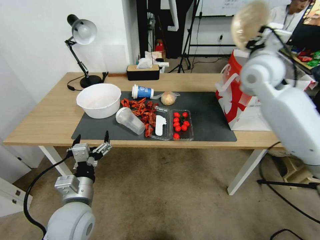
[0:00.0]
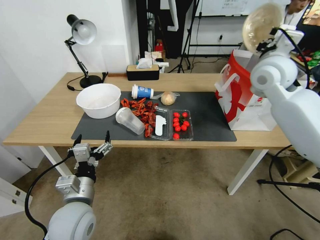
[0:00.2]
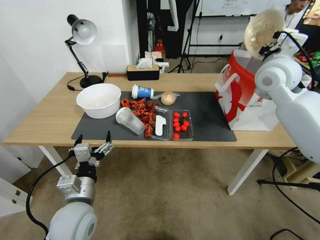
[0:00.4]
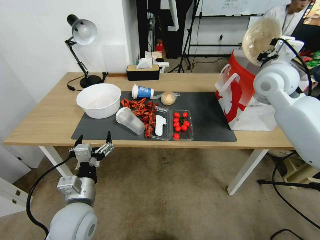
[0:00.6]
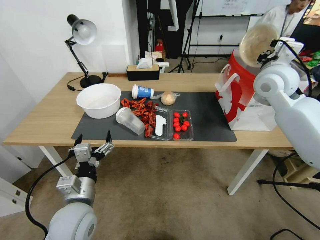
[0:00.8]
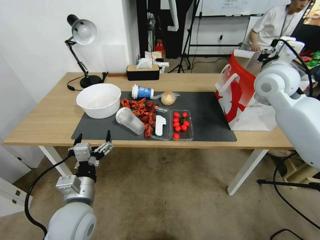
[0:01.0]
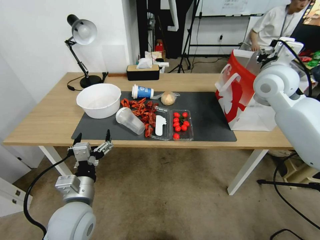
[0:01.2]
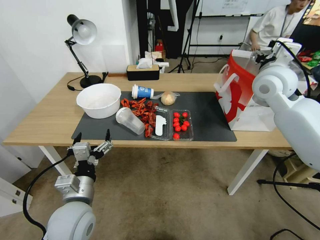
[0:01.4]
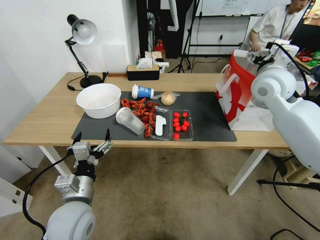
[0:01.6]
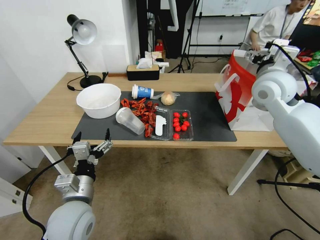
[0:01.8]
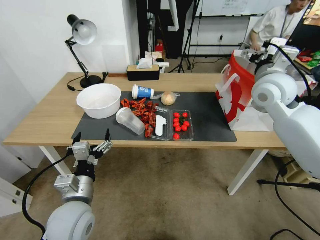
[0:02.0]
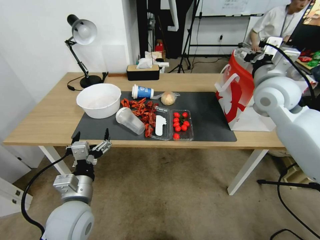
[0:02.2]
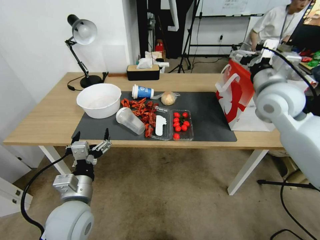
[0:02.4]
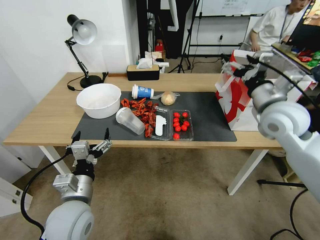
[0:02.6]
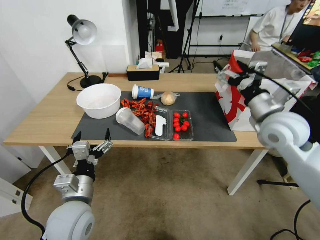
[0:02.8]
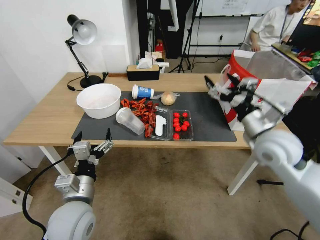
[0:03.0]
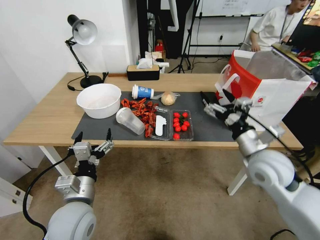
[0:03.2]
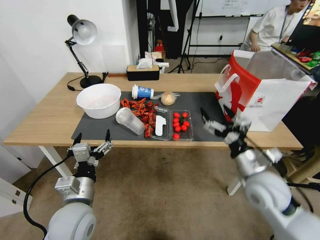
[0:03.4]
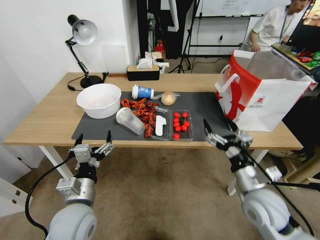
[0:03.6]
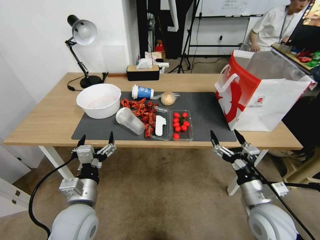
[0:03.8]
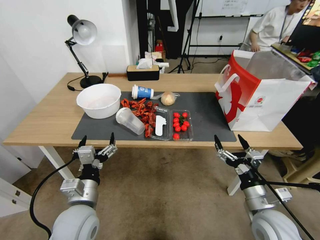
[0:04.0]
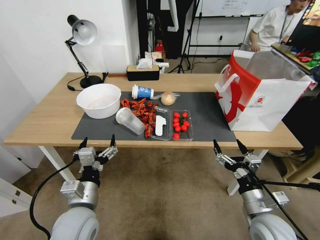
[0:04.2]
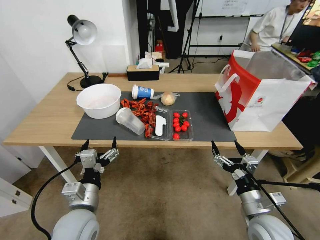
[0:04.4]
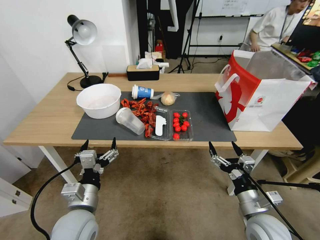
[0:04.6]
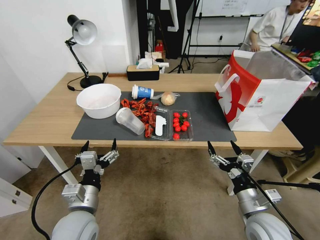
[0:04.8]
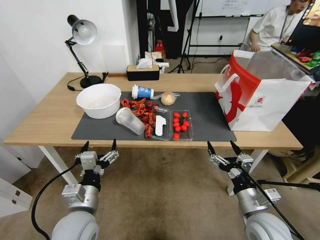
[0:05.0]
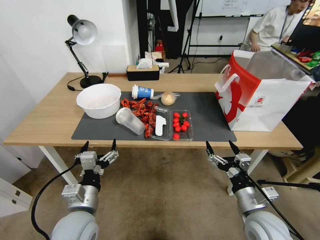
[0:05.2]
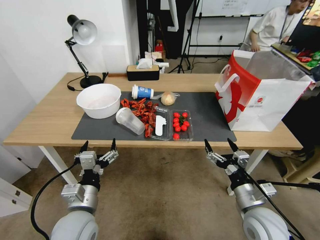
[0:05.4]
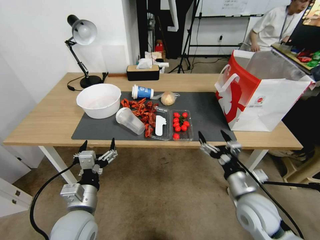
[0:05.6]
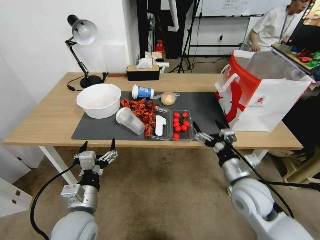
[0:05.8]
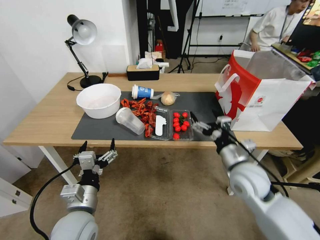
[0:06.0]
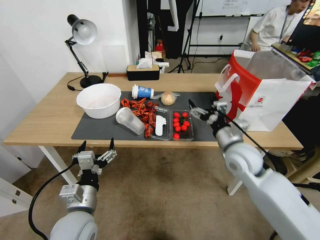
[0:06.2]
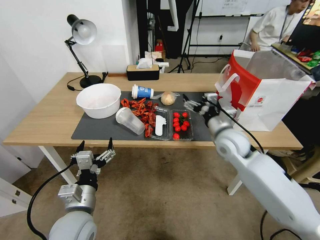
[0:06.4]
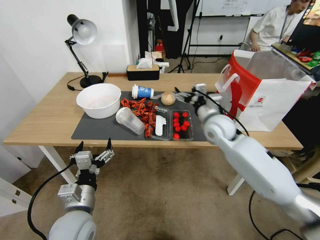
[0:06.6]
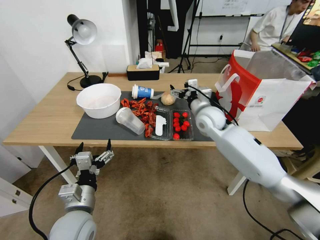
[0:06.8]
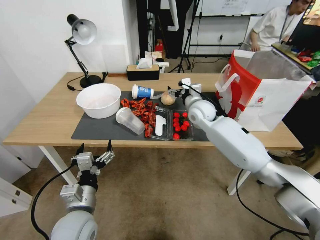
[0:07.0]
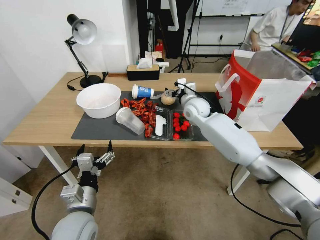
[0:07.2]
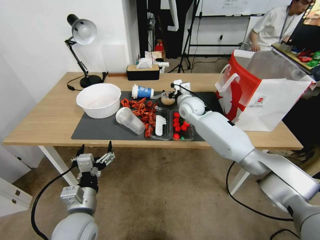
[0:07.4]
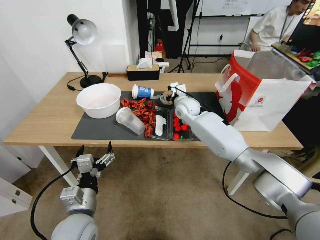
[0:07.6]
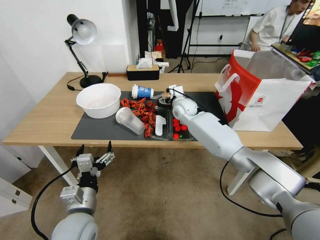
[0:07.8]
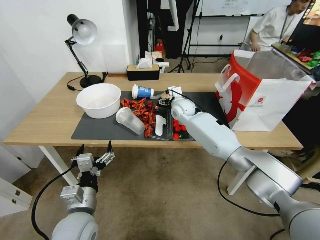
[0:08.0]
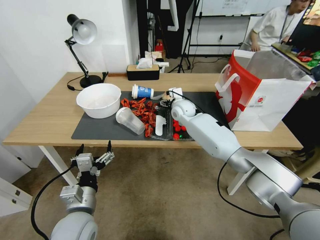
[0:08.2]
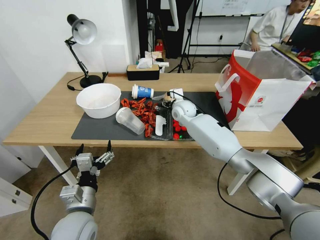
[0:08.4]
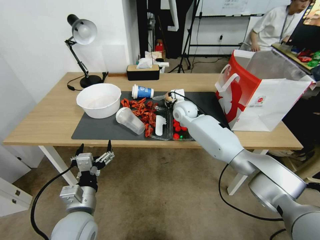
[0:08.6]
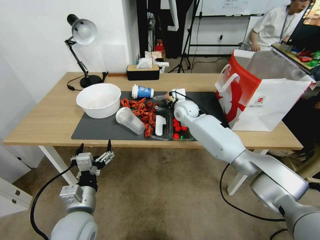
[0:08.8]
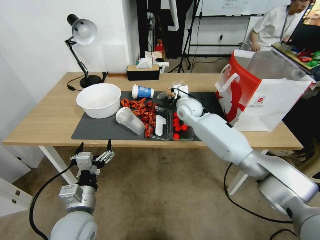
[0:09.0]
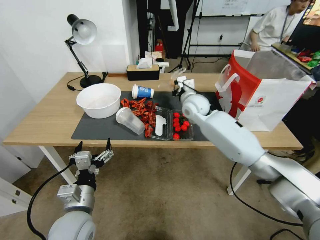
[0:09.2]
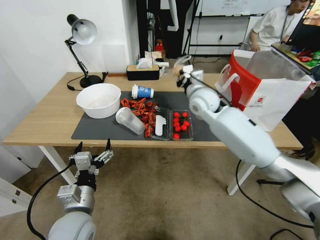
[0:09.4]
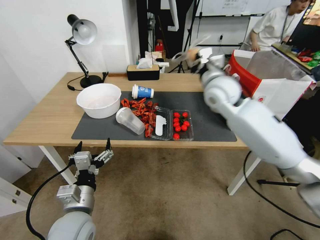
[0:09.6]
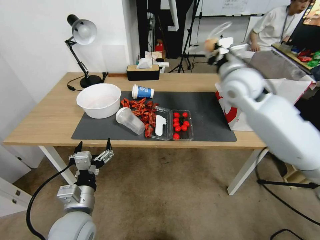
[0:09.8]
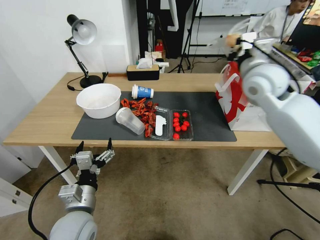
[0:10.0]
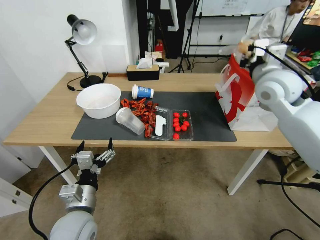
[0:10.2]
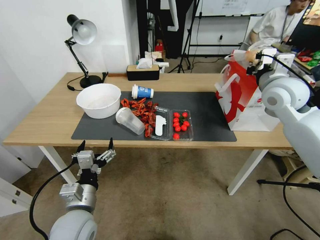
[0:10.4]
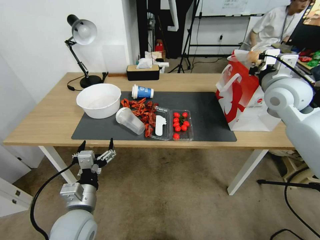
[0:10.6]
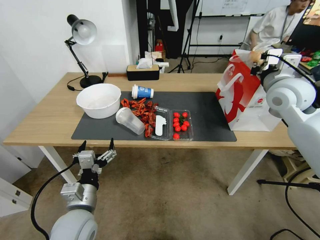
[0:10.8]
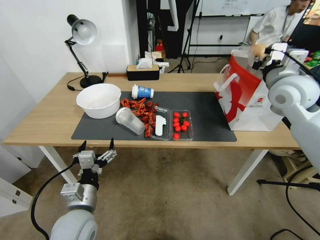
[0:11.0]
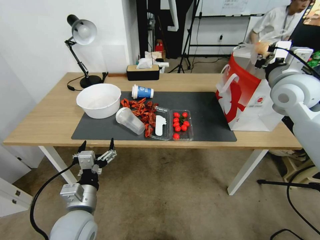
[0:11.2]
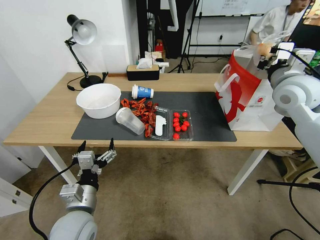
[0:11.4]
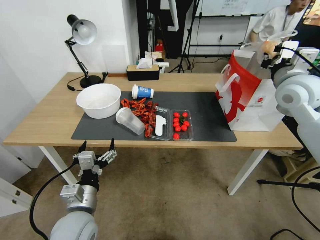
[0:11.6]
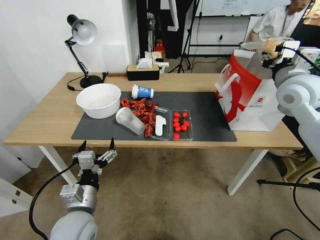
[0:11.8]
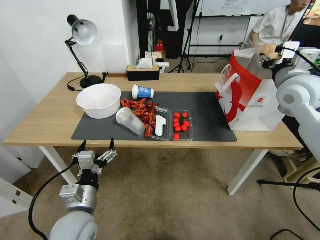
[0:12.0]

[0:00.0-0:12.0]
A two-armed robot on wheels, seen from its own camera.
0:00.0 to 0:01.6: The right gripper opens its fingers.
0:01.6 to 0:03.0: The right gripper travels backward and downward by roughly 15 cm.
0:03.0 to 0:04.4: The right gripper moves downward and backward, about 25 cm.
0:04.4 to 0:06.0: The right gripper moves forward and upward, some 15 cm.
0:06.0 to 0:07.6: The right gripper shifts roughly 30 cm forward and to the left.
0:07.6 to 0:09.0: The right gripper closes.
0:09.0 to 0:10.4: The right gripper is displaced to the right, upward and backward by roughly 30 cm.
0:10.4 to 0:12.0: The right gripper opens.

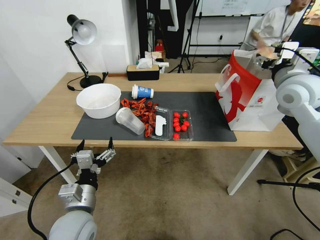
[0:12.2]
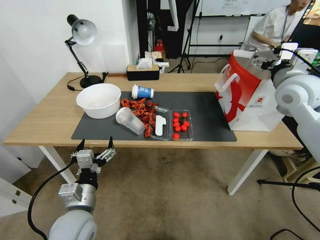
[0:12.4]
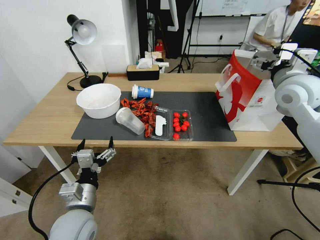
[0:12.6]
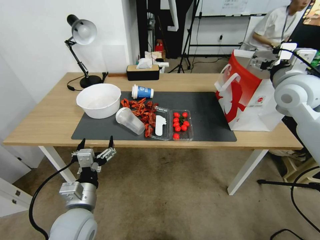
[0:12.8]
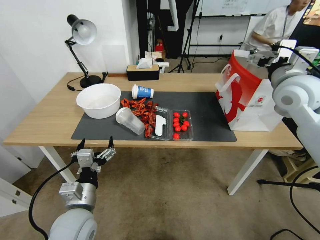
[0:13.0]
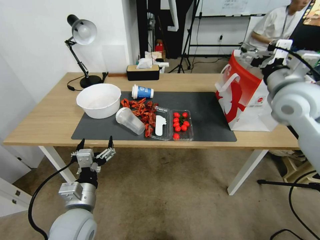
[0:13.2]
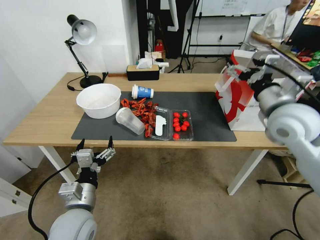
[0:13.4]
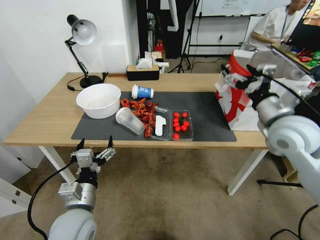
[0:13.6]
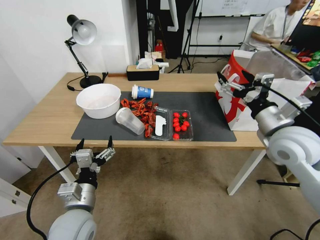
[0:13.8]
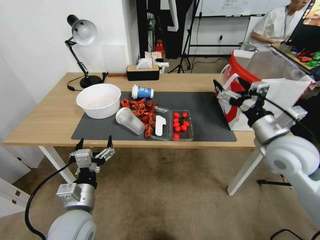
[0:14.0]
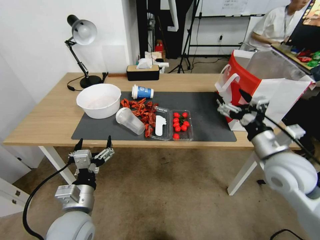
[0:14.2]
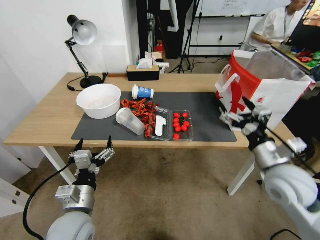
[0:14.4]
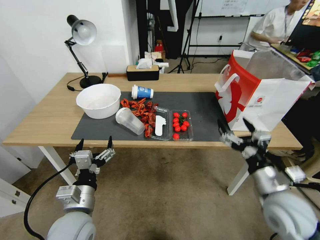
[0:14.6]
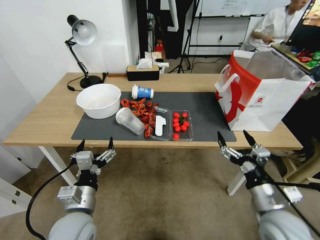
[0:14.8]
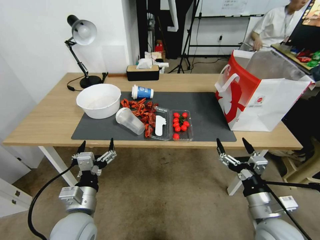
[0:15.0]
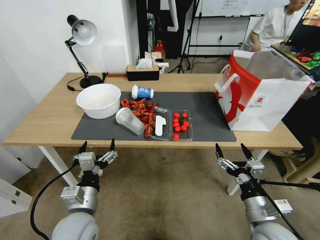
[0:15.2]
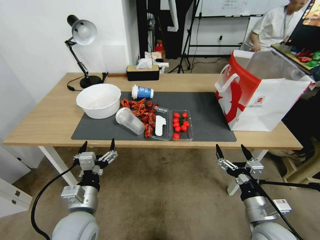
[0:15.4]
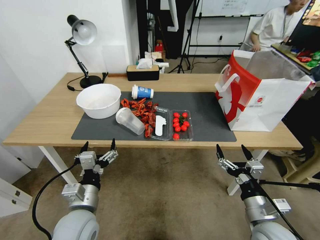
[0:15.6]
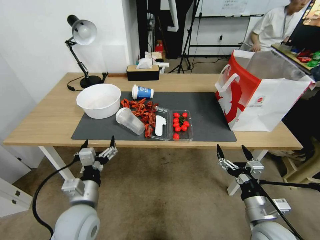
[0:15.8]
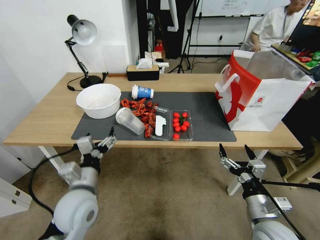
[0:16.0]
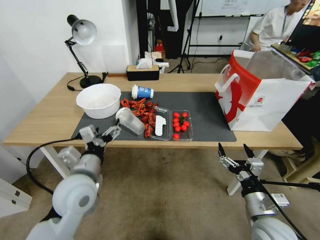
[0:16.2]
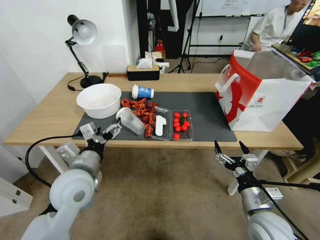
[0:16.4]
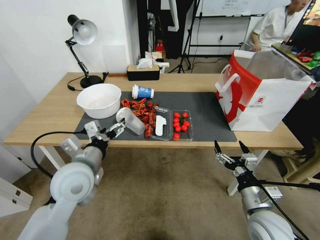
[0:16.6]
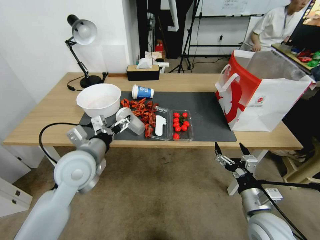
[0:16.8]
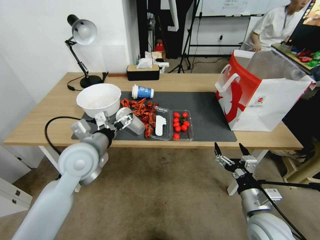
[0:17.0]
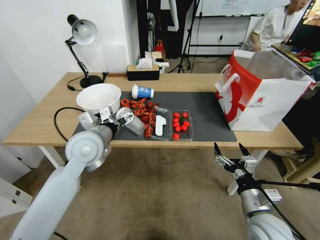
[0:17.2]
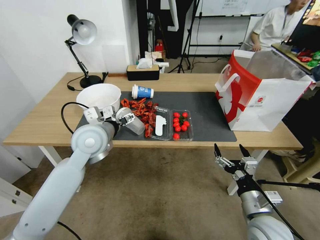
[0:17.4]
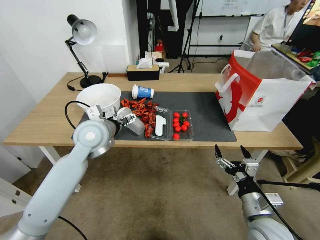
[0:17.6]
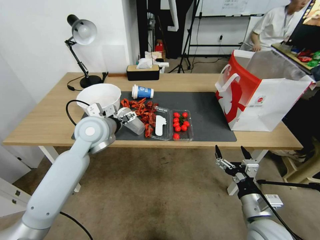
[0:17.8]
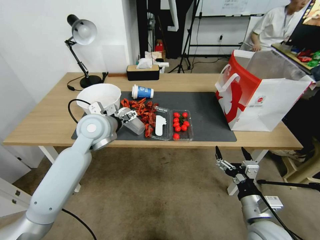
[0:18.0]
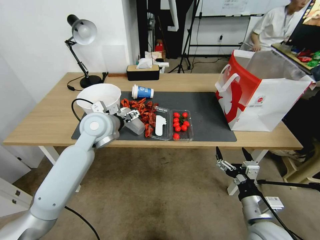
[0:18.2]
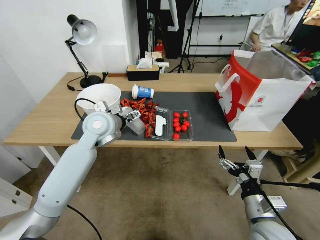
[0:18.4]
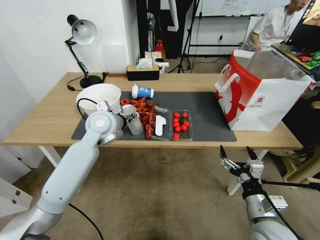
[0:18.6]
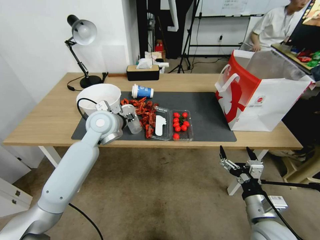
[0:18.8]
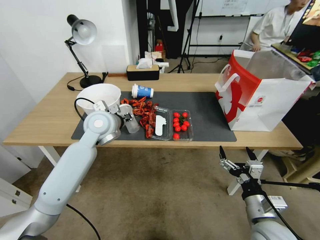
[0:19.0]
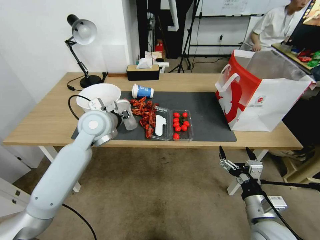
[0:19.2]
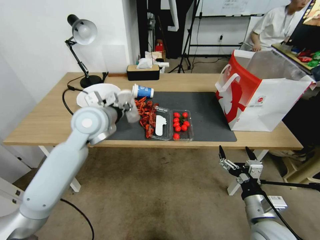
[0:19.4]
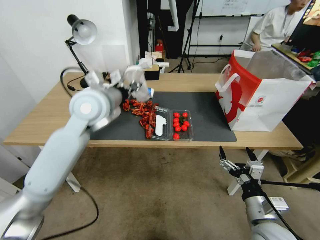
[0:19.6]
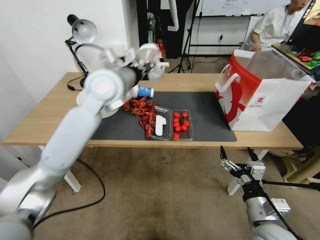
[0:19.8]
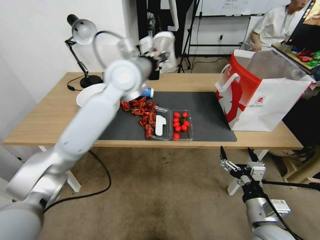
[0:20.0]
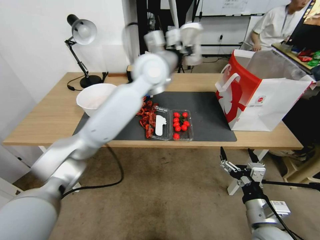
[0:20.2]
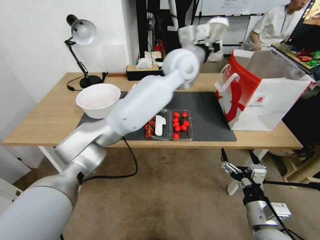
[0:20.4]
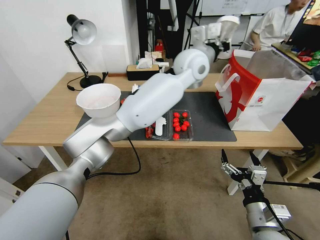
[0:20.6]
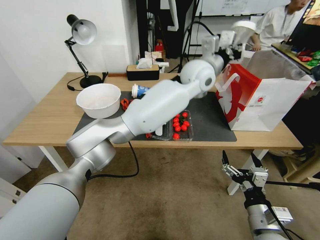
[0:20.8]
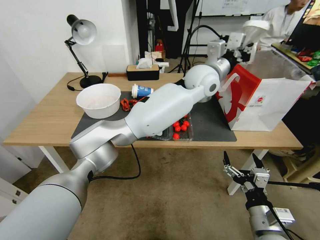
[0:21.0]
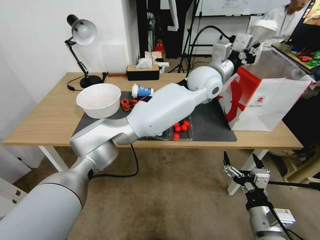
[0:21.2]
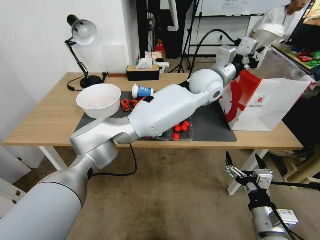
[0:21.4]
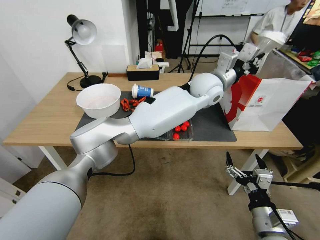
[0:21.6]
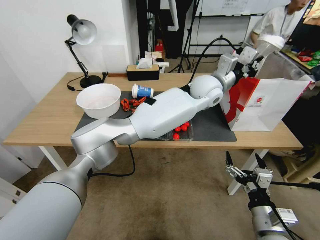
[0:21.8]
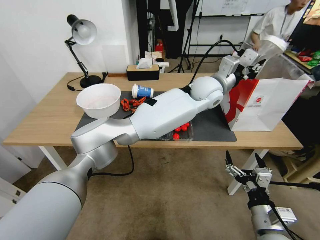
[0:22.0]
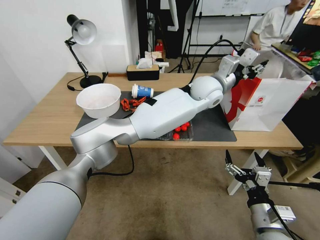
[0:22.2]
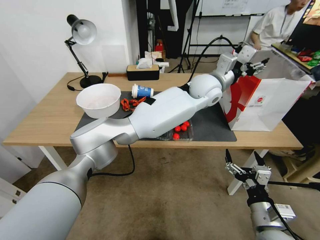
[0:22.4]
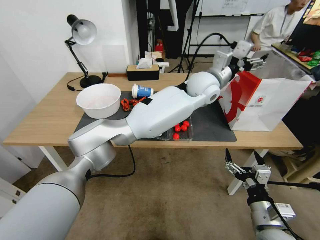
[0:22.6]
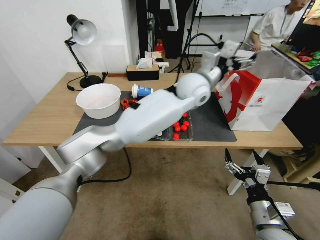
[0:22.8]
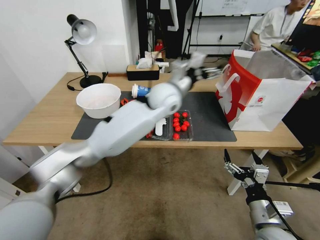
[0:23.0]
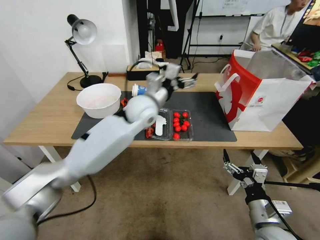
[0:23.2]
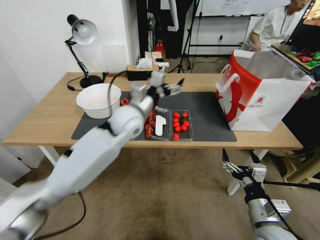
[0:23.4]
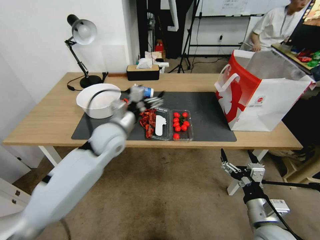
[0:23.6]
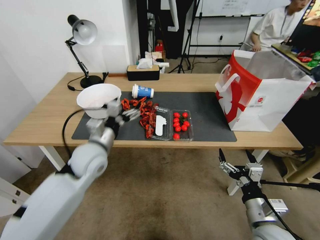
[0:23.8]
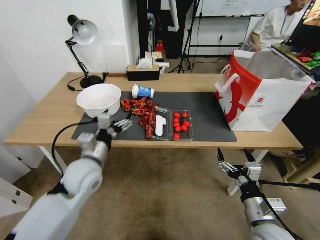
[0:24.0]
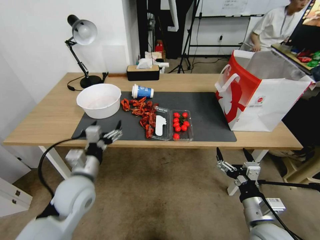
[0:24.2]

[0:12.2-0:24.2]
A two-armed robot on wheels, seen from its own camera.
0:12.2 to 0:13.8: The right gripper heads backward and downward, covering roughly 15 cm.
0:13.8 to 0:15.2: The right gripper is displaced downward and backward by roughly 25 cm.
0:15.2 to 0:16.6: The left gripper is displaced upward and forward by about 15 cm.
0:16.6 to 0:18.2: The left gripper goes roughly 15 cm forward.
0:18.2 to 0:19.8: The left gripper shifts approximately 15 cm upward and to the right, and closes its fingers.
0:19.8 to 0:21.2: The left gripper moves to the right, about 25 cm.
0:21.2 to 0:22.6: The left gripper opens its fingers.
0:22.6 to 0:24.2: The left gripper heads to the left, backward and downward, covering some 50 cm.
